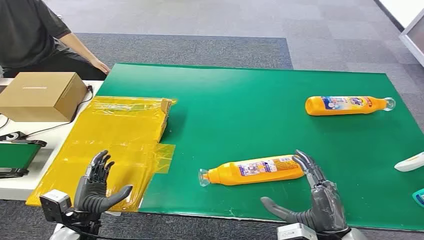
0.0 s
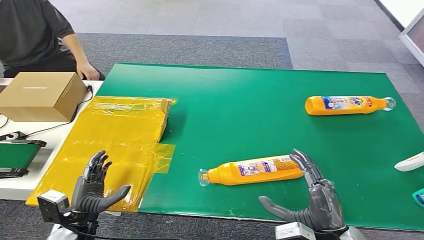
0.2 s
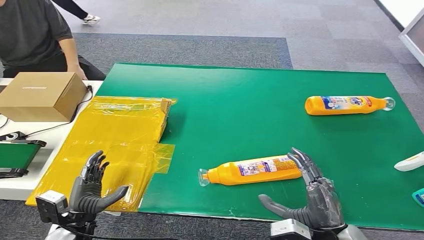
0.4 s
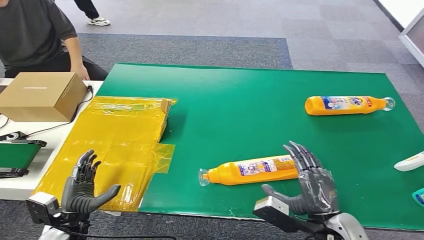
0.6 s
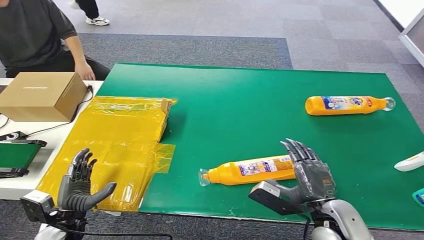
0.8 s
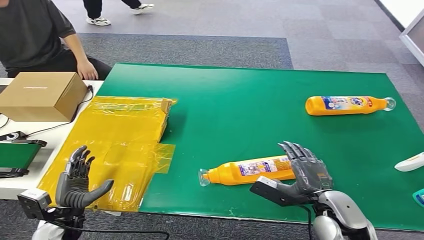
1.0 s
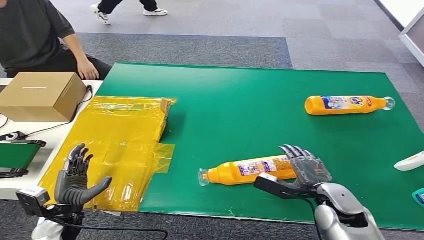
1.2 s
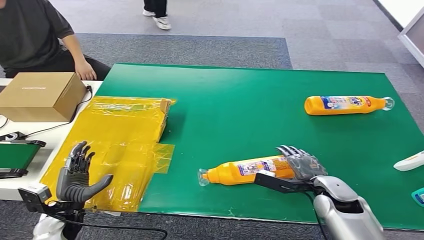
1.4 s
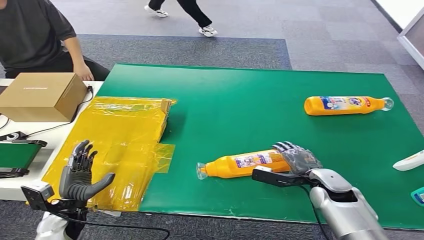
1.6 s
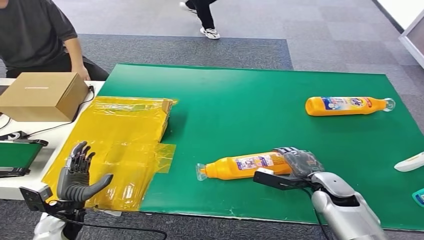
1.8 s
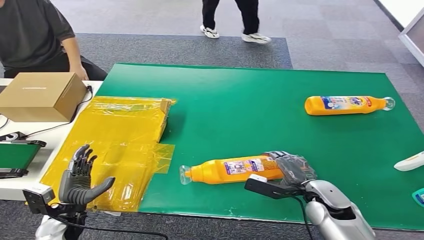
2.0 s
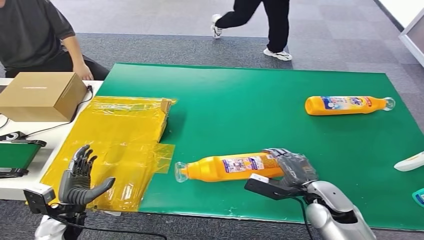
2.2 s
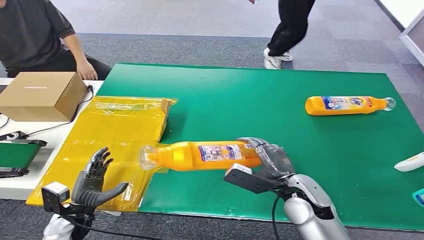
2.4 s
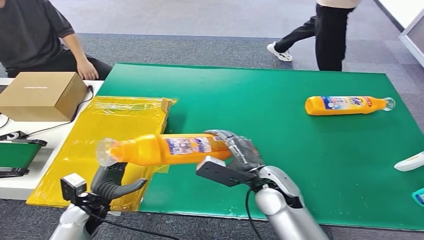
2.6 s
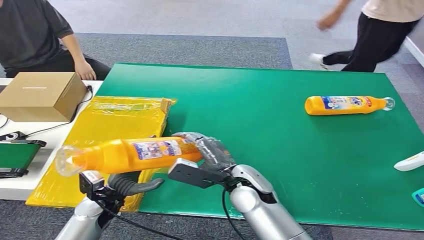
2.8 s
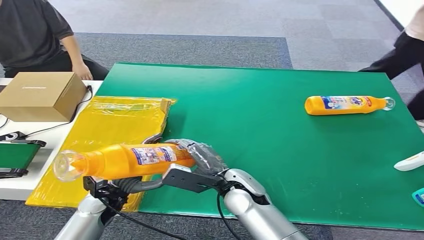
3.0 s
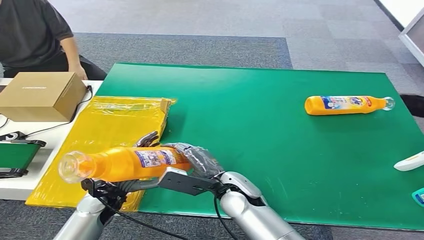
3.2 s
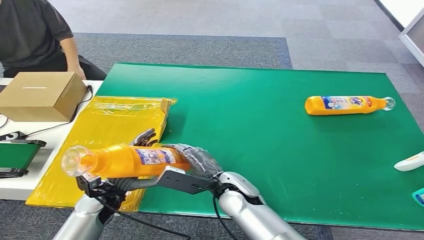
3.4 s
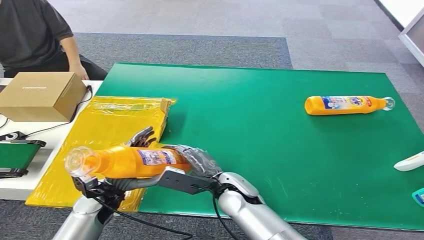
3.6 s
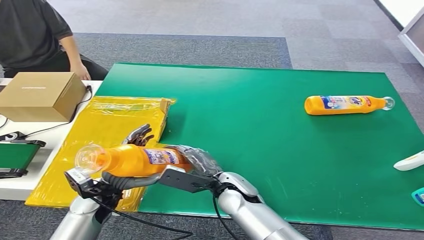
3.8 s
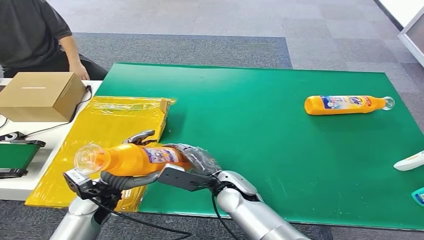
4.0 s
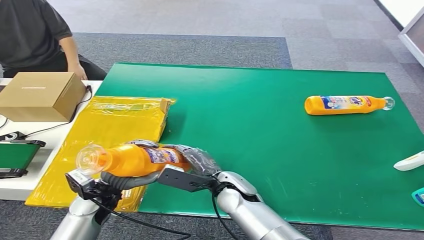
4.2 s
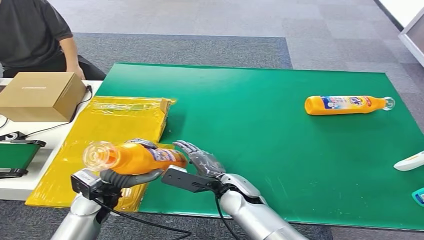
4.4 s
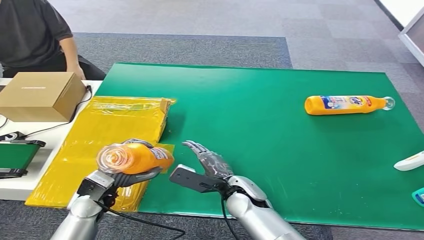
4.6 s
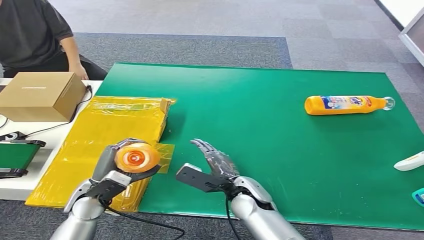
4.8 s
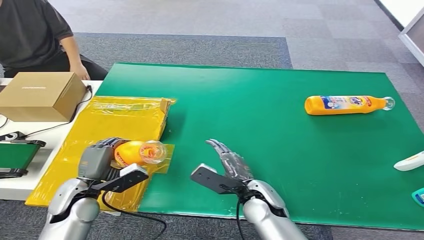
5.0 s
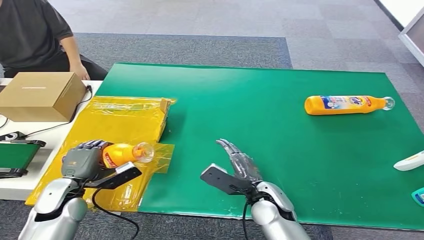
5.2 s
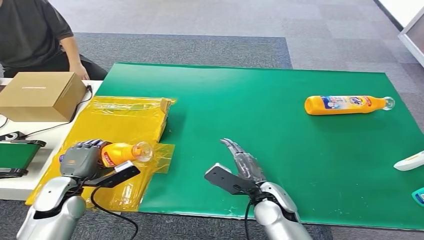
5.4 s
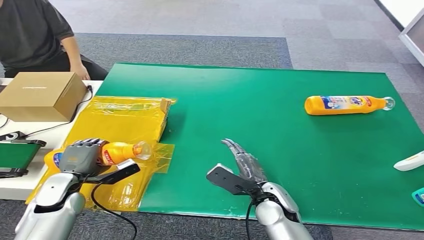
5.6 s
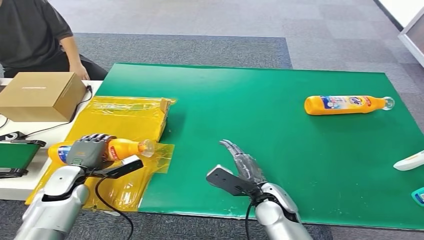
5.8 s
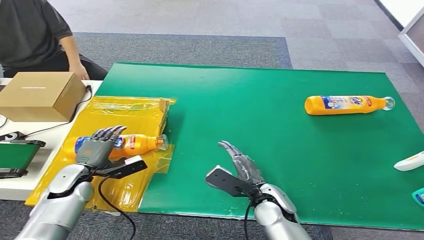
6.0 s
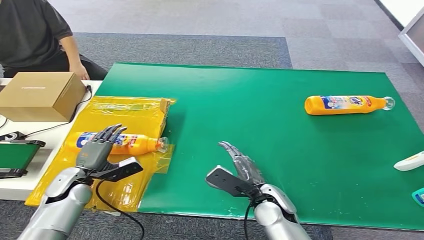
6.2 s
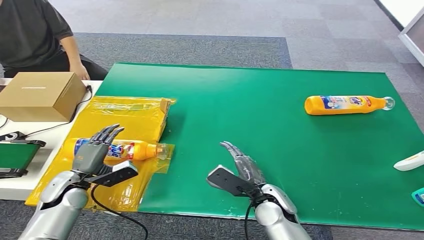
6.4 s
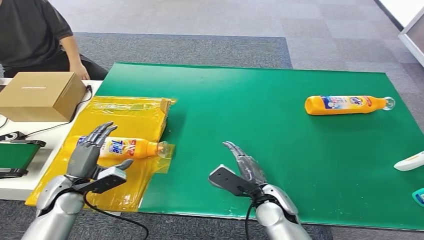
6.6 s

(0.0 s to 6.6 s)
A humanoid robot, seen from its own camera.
Step, 0.0 s - 2.4 s: Pick up the bottle from the table.
Step, 2.6 s - 6.6 s: Turn the bottle to the front side.
3.2 s - 5.0 s: The right hand travels to the right by some 5 cm; the left hand moves roughly 5 cm.

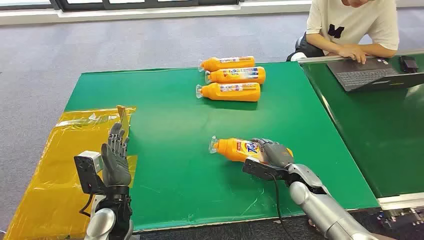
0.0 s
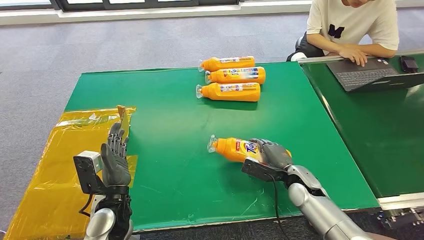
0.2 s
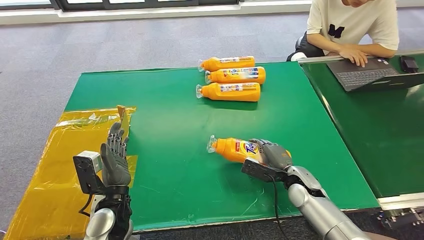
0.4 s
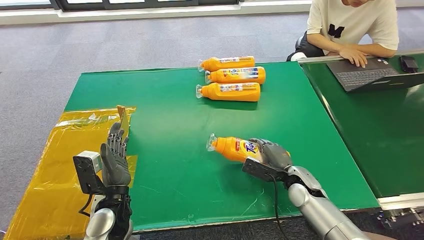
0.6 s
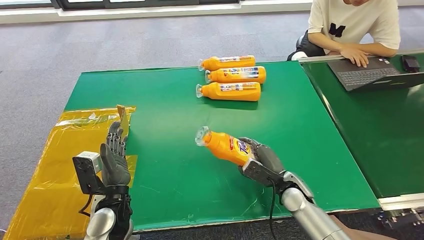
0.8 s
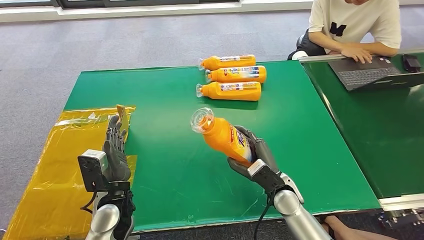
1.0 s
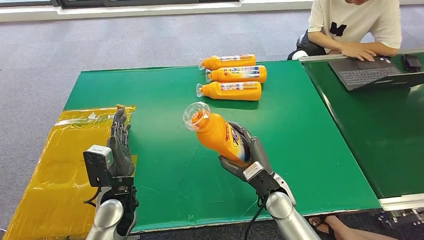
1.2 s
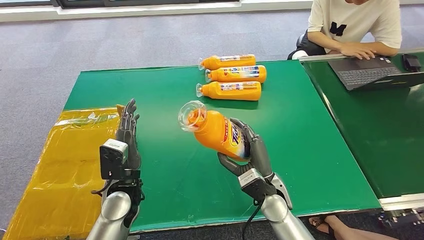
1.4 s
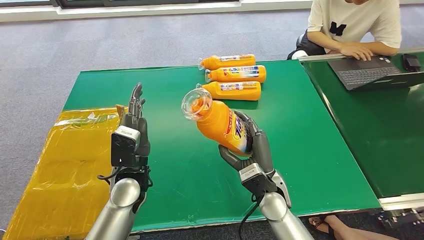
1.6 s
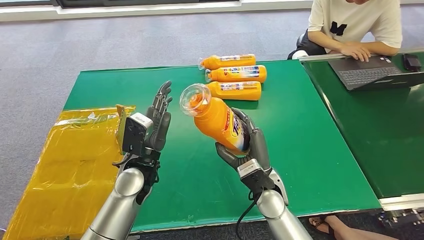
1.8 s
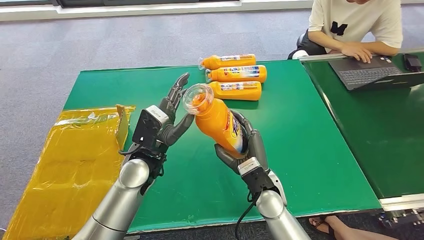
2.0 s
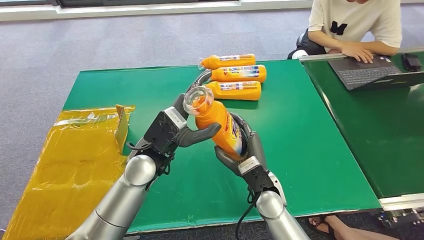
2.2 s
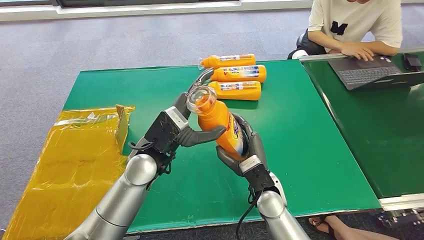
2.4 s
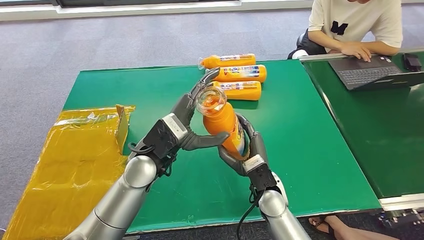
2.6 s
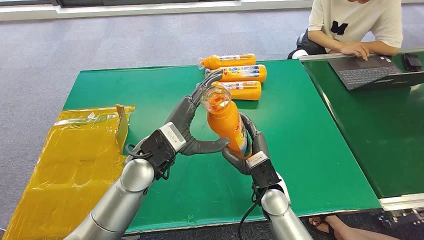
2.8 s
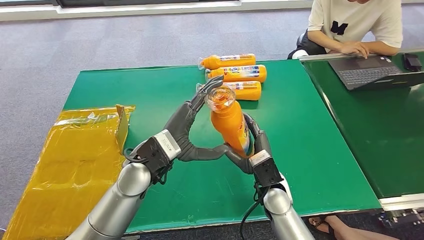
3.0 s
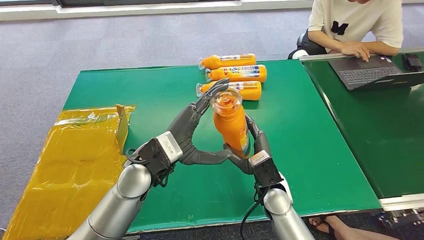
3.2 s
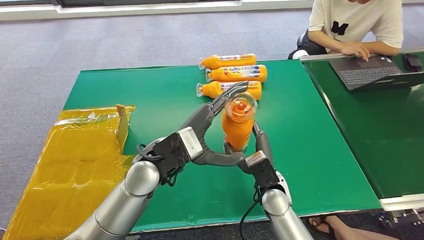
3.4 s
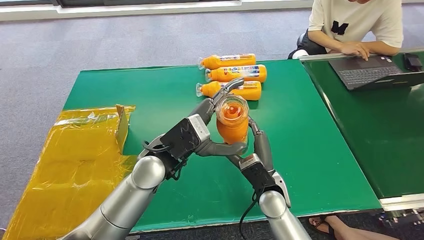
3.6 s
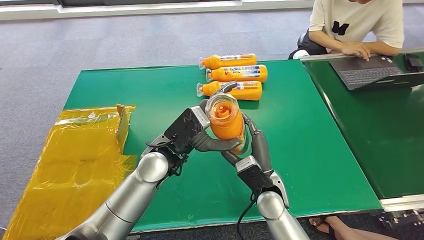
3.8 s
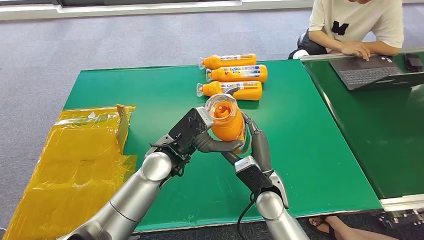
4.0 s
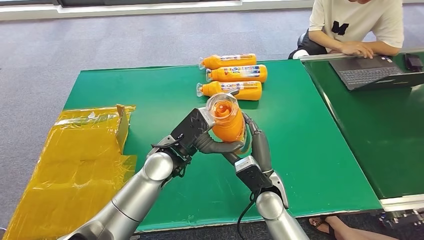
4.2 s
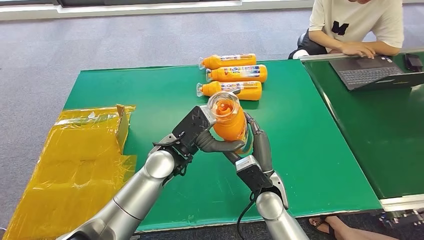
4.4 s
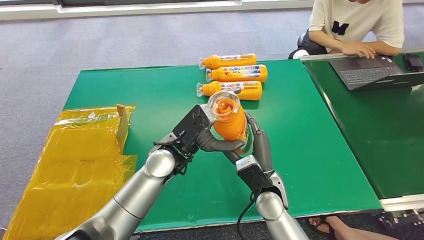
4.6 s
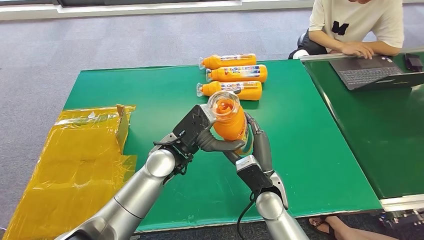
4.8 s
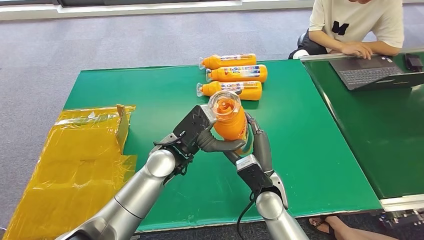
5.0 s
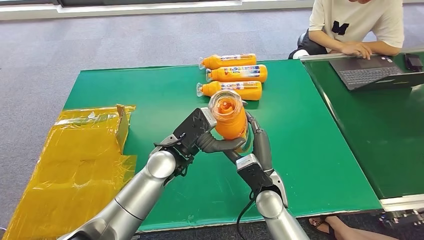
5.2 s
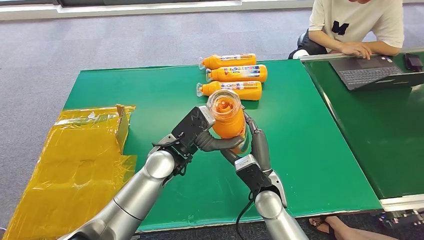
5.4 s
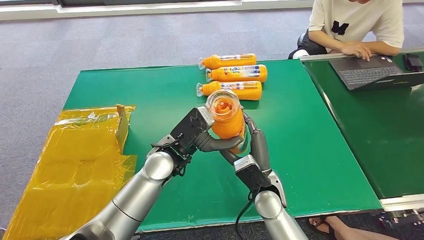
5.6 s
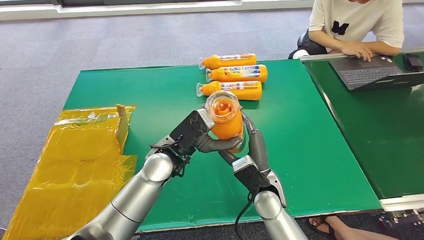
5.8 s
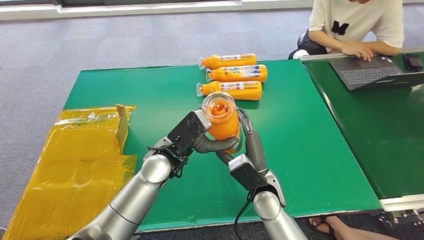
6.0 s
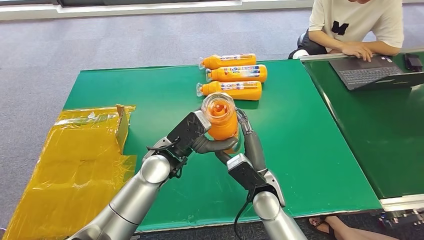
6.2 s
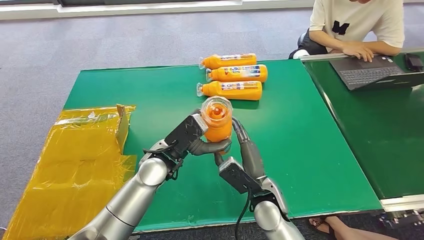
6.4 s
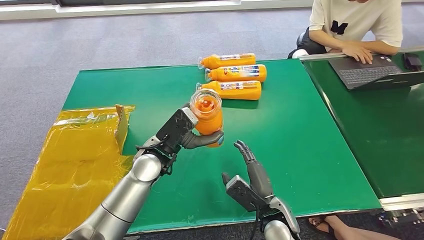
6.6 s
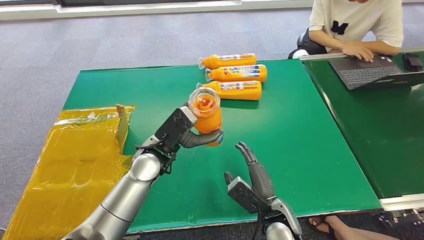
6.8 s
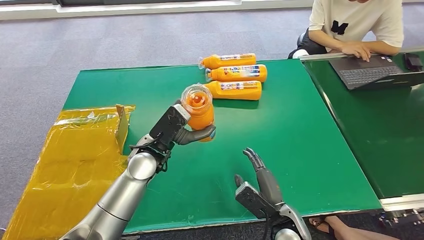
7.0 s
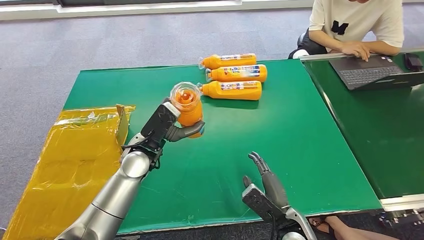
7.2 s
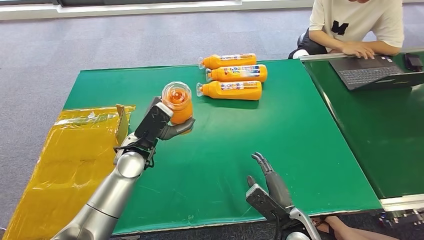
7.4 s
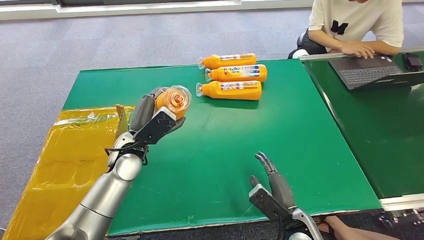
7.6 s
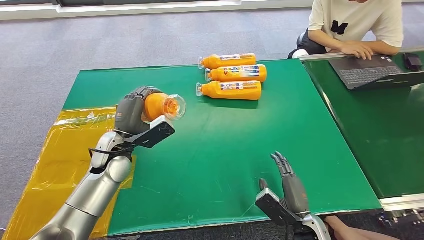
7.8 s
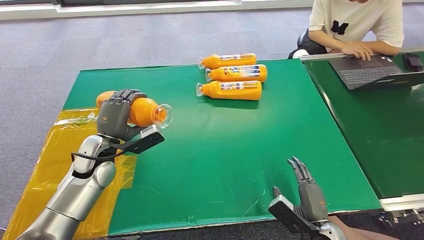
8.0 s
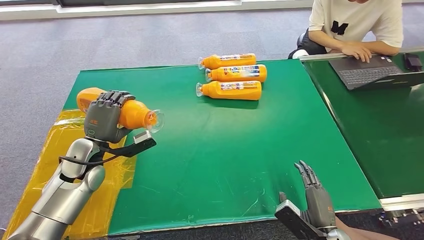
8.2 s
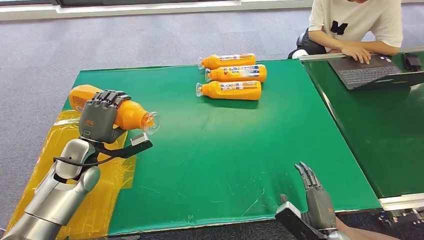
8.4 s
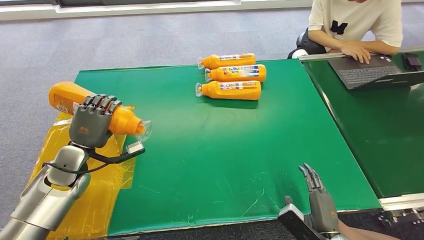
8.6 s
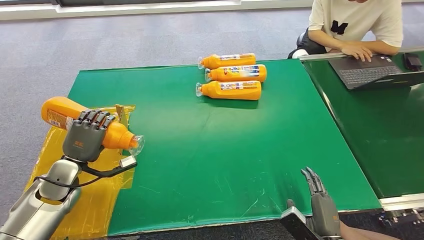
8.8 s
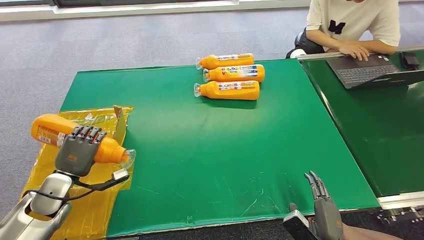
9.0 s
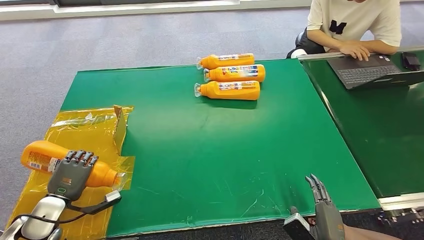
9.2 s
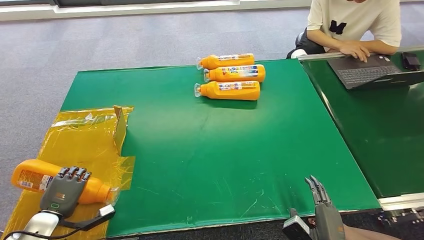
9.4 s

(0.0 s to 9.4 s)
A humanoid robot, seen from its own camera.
Step, 0.0 s - 2.8 s: Pick up the bottle from the table.
Step, 3.0 s - 9.4 s: Turn the bottle to the front side.
1.6 s - 3.2 s: The left hand travels upward and to the right by some 10 cm.
3.2 s - 4.8 s: The left hand changes place by roughly 5 cm.
4.8 s - 6.2 s: There are only small adjustments of the hands.
6.2 s - 7.8 s: The left hand is displaced to the left by some 15 cm, while the right hand heads to the right, backward and downward, covering roughly 15 cm.
7.8 s - 9.4 s: The left hand heads to the left, backward and downward, covering approximately 30 cm. The right hand goes about 10 cm backward.

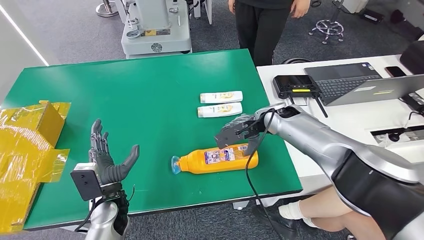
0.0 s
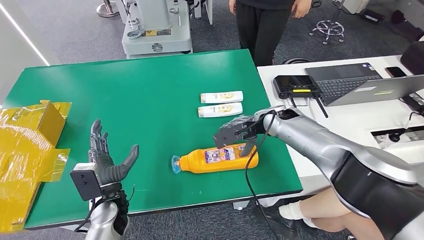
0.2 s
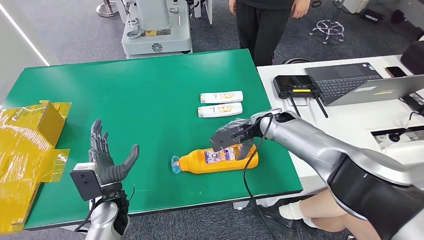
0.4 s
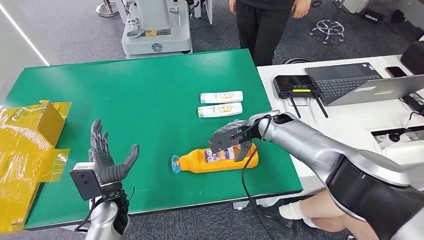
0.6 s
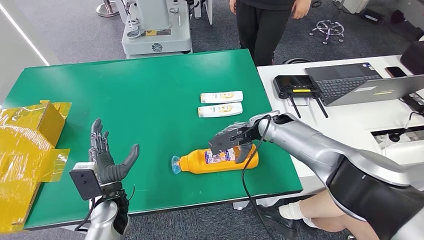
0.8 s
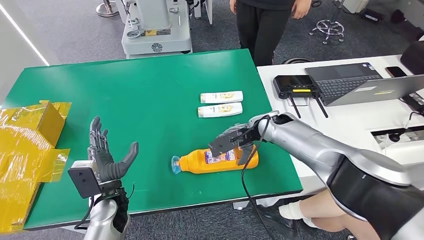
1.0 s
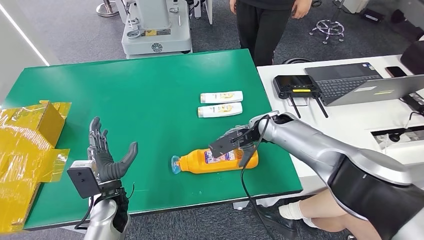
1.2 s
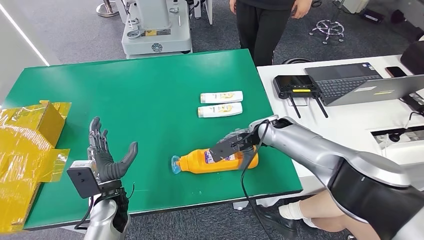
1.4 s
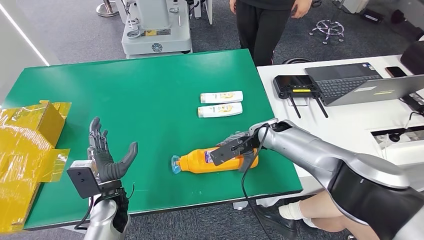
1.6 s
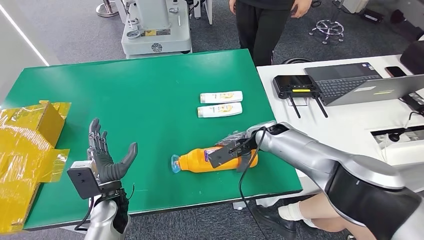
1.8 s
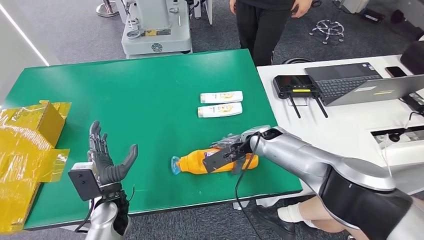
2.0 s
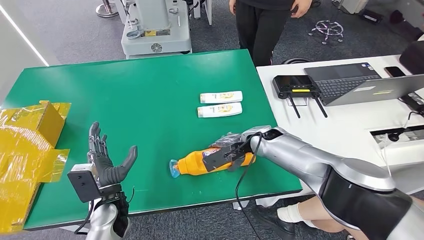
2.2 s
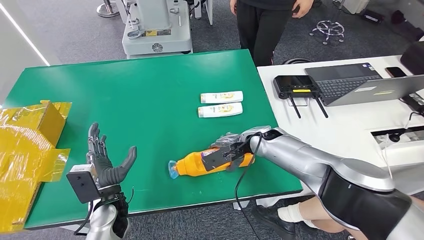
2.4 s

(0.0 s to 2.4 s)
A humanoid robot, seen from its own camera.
0.0 s - 1.2 s: The hands move only a little.
1.2 s - 2.4 s: The right hand ends up some 5 cm from where it was.
